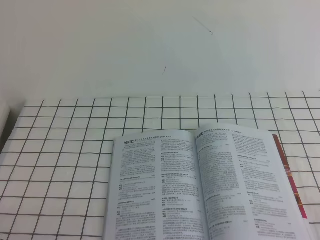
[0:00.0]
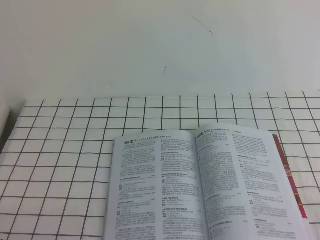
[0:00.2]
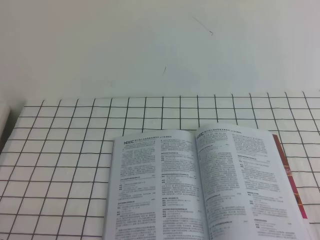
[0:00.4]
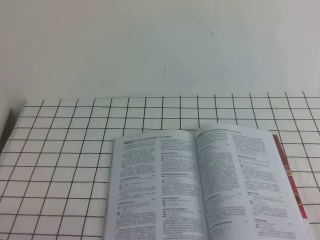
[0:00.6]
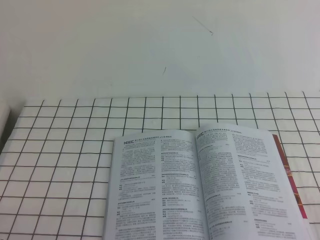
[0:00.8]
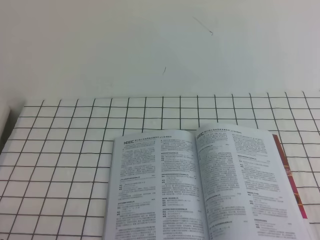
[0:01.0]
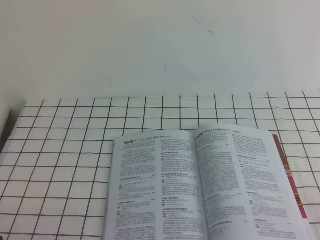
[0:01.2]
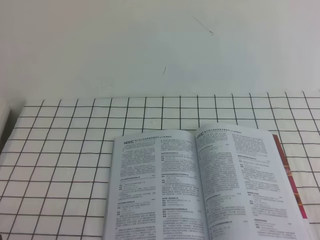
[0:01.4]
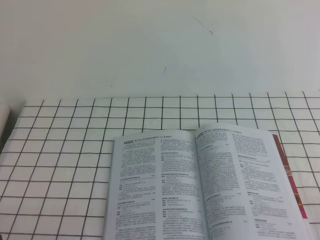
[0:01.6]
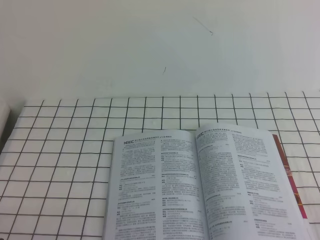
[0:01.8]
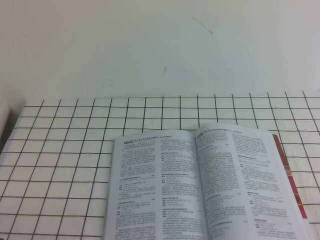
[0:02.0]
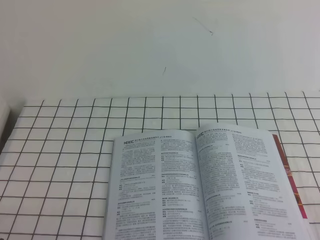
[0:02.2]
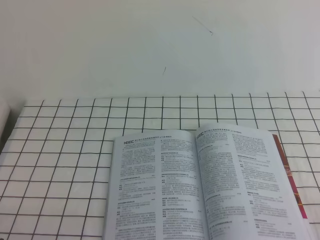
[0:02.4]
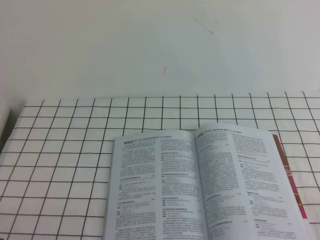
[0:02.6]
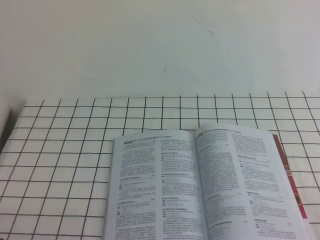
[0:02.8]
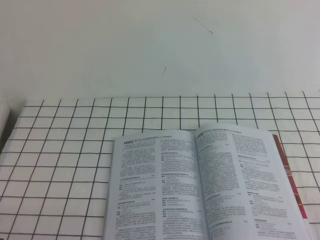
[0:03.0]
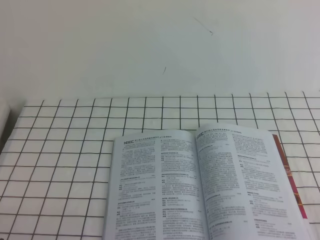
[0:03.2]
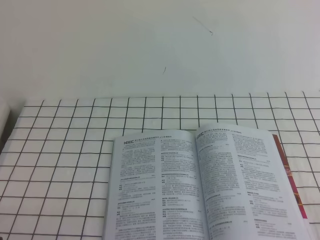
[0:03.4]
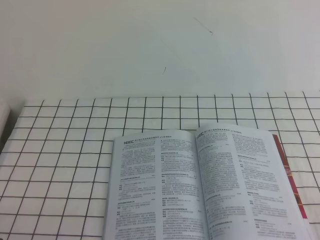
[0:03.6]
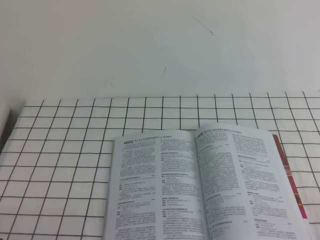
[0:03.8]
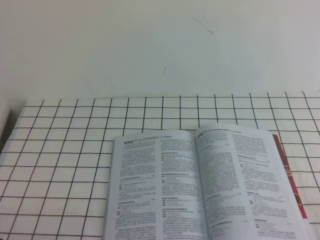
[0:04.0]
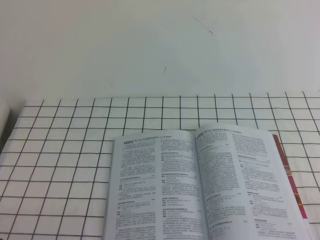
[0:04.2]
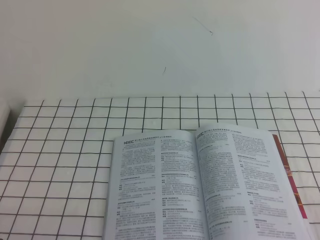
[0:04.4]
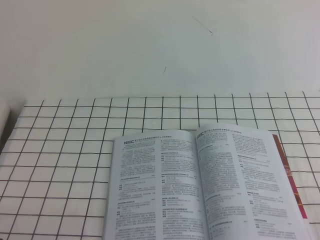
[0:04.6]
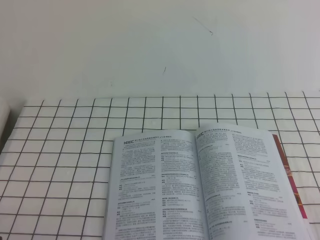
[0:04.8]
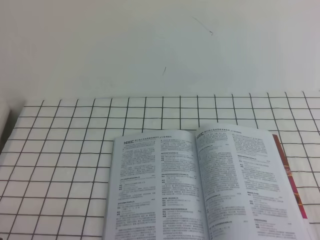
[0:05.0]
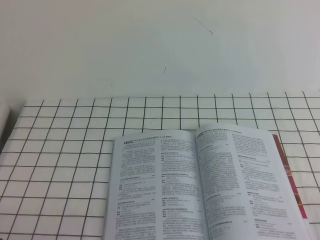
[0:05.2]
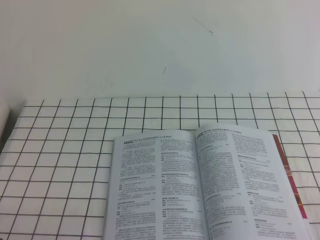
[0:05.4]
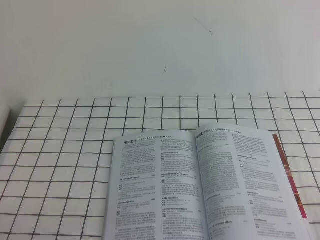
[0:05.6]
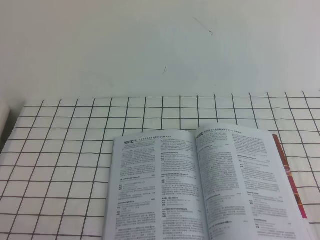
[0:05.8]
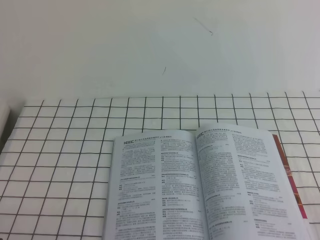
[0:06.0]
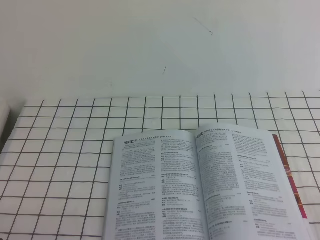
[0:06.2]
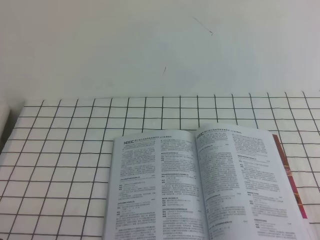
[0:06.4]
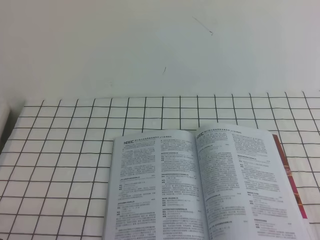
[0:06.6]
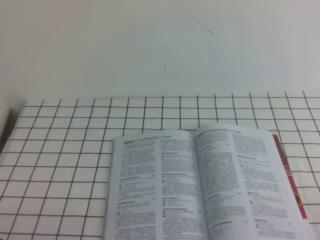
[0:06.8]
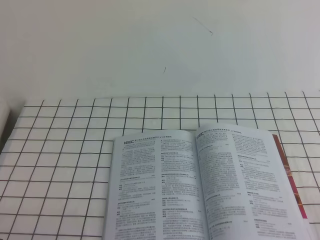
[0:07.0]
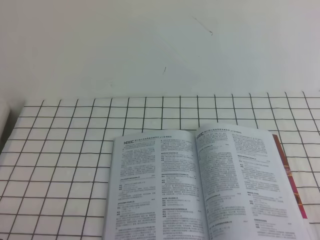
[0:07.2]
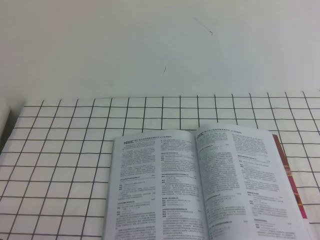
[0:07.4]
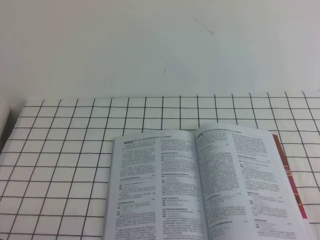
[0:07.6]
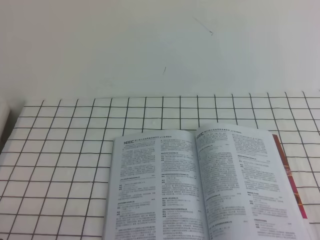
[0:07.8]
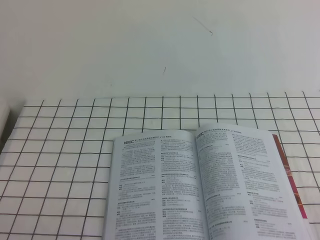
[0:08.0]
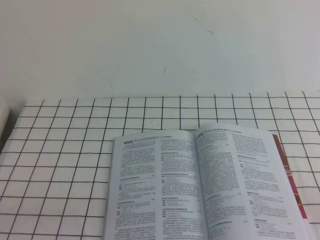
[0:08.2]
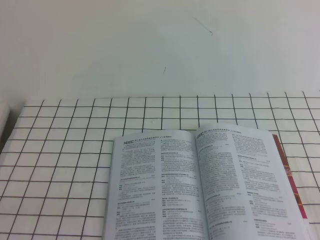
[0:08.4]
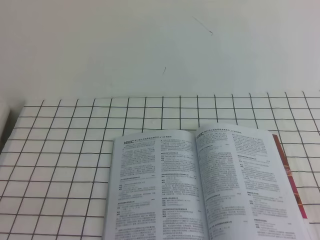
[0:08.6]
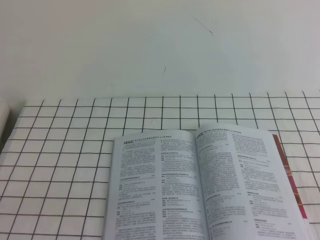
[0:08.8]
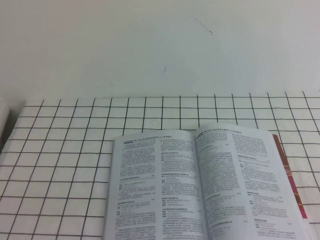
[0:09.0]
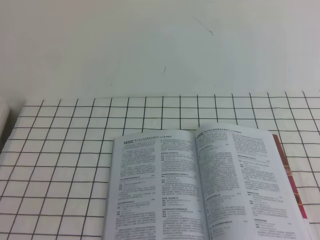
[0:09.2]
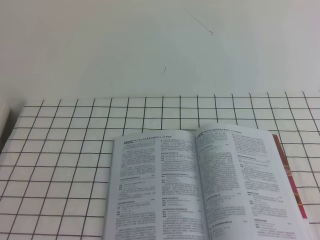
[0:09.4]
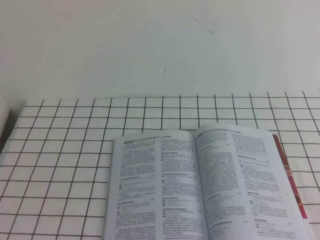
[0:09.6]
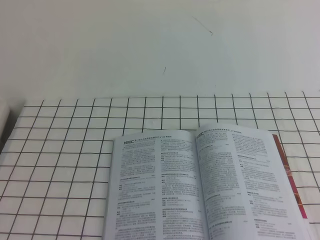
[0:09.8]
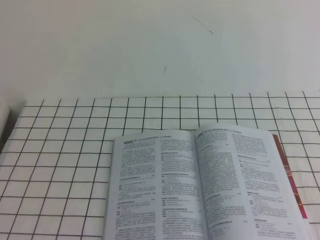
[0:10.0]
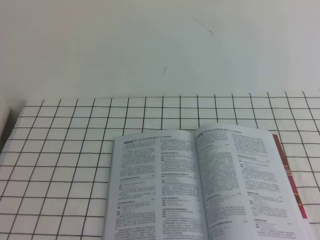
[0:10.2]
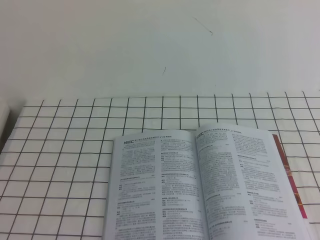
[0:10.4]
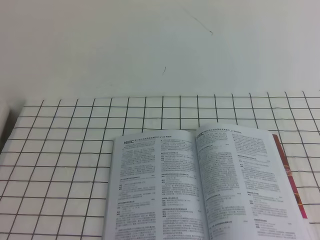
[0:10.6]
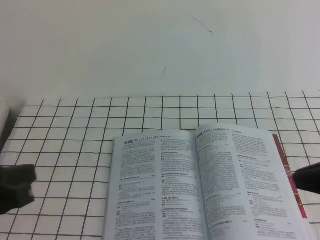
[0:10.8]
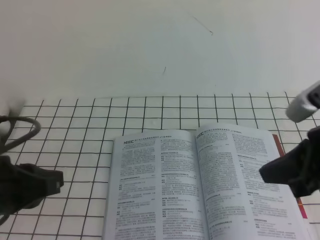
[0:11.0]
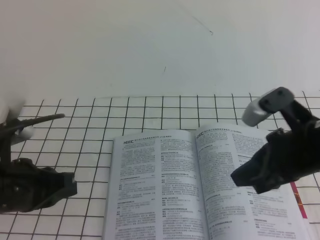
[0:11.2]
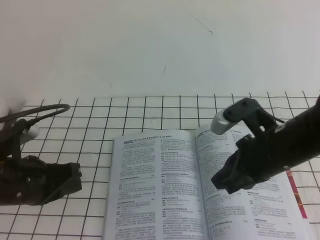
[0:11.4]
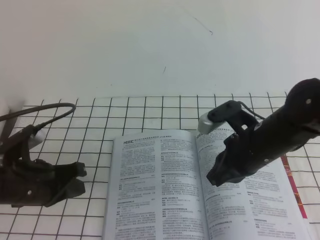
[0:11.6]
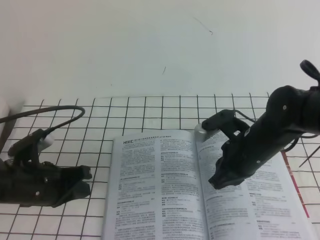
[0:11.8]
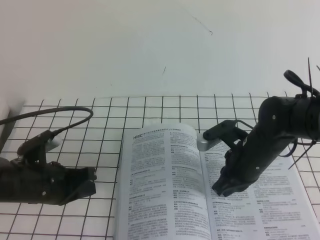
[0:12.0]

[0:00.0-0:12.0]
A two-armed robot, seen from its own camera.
Task of the whole recording: on the white tablecloth, hold the book with one hand and close it with the other.
0:01.6 to 0:04.4: The two grippers keep their place.
0:10.4 to 0:12.0: The right gripper is displaced forward, downward and to the left by some 35 cm, while the left gripper heads forward and downward, covering some 25 cm.

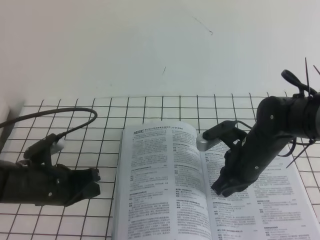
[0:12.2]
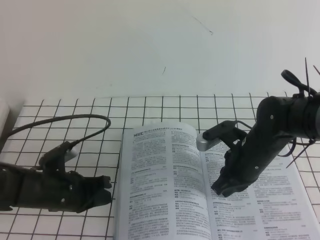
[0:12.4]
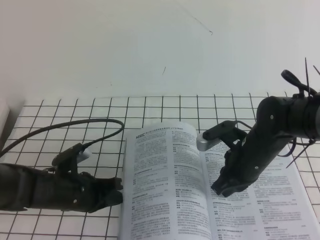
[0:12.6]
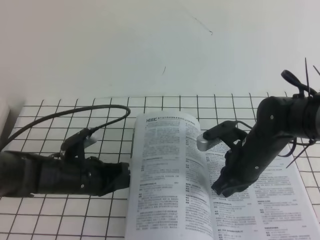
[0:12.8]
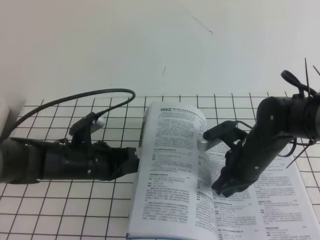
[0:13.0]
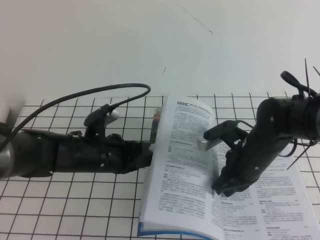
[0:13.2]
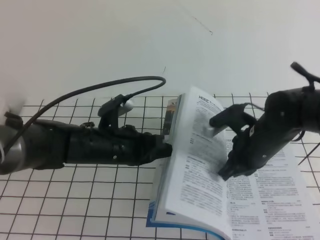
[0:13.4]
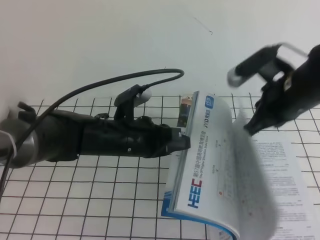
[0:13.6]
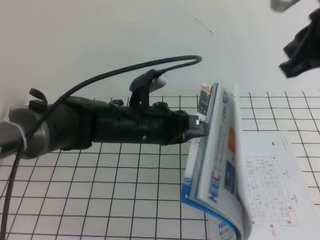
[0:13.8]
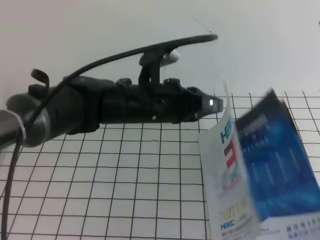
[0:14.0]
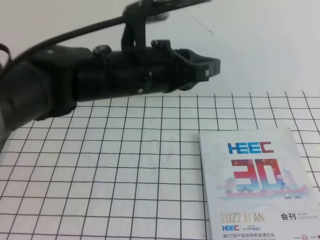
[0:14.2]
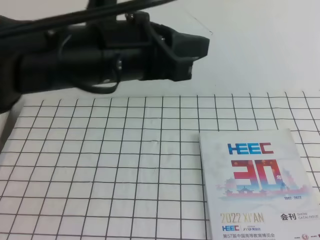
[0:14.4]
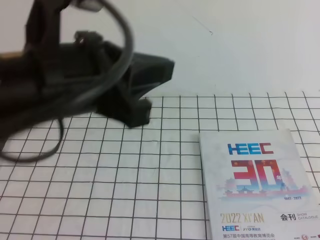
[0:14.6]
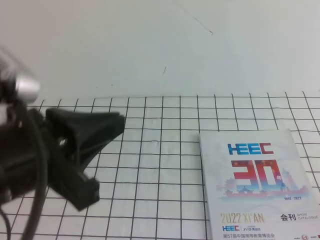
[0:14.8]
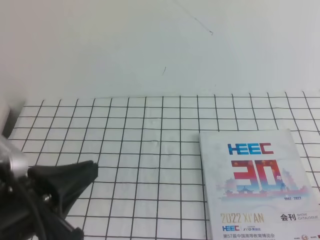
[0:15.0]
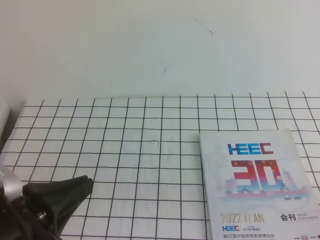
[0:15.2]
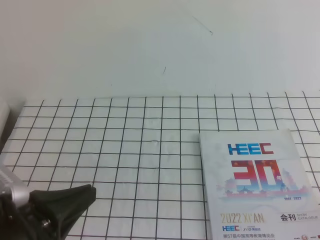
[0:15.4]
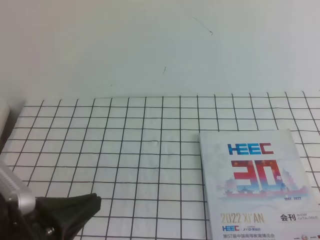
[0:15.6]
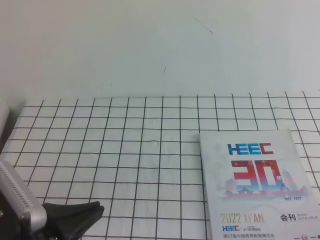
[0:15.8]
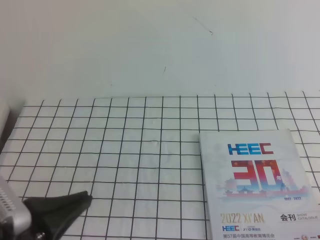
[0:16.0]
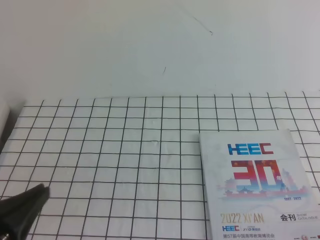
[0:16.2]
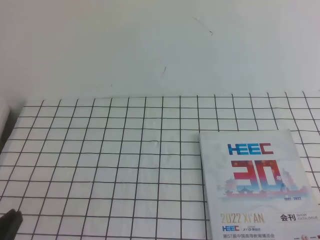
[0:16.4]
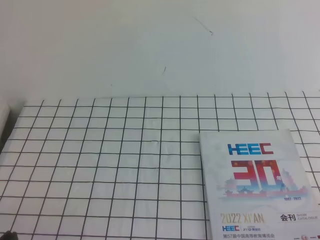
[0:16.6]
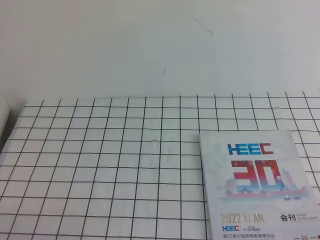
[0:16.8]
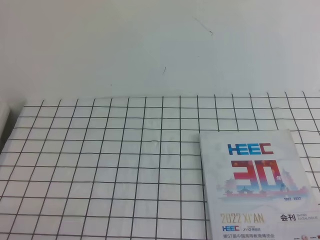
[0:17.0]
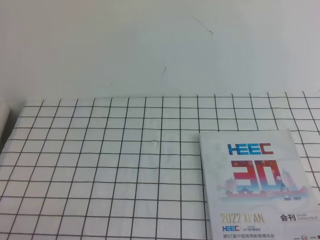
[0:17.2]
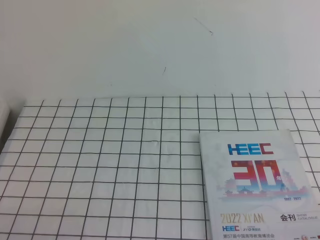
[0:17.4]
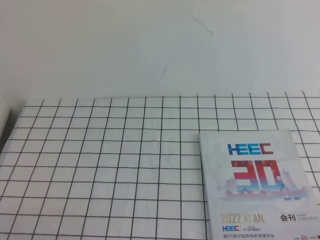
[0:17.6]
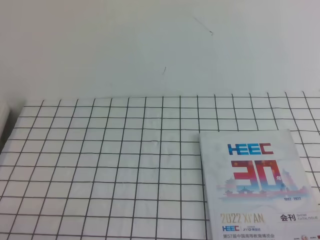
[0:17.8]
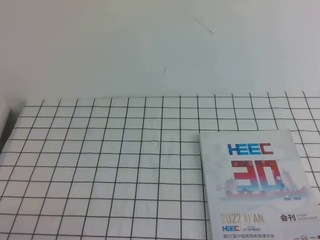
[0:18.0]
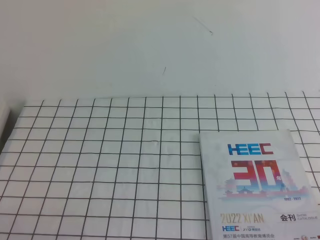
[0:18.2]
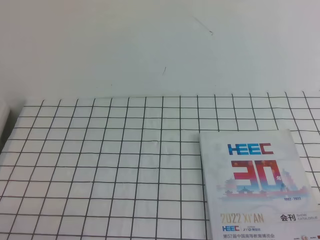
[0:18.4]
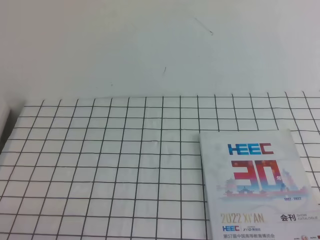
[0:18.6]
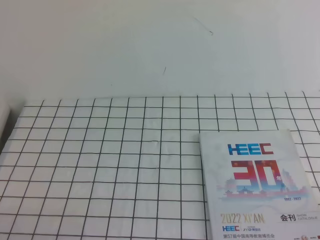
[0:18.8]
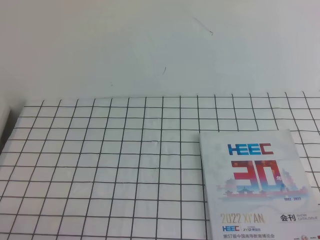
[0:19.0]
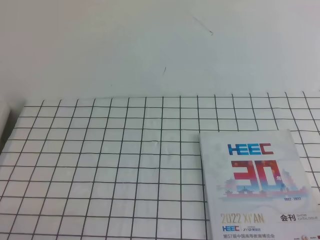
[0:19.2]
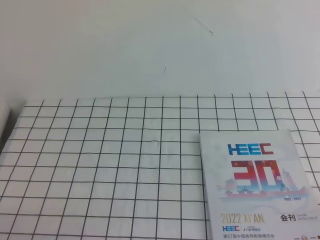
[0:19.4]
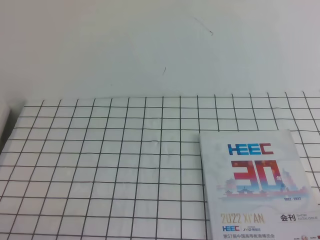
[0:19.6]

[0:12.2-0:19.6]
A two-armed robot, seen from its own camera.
Task of the whole recording: on the white tablecloth, hold the book with one hand and close it with the other.
Step, 0:12.2 to 0:19.6: Close the open book.
0:12.2 to 0:13.6: The left gripper is displaced to the right and upward by about 15 cm; the right gripper travels upward by roughly 15 cm.
0:13.6 to 0:15.2: The right gripper moves backward and to the right, some 35 cm; the left gripper is displaced backward, to the left and upward by about 25 cm.
0:15.2 to 0:16.6: The left gripper travels downward, to the left and backward by about 15 cm.
